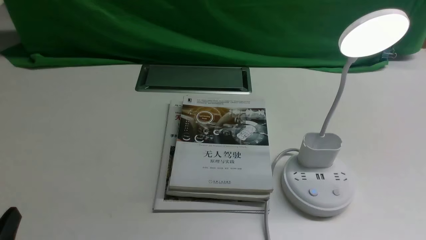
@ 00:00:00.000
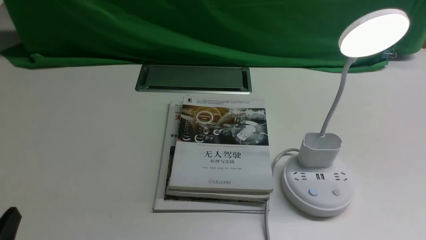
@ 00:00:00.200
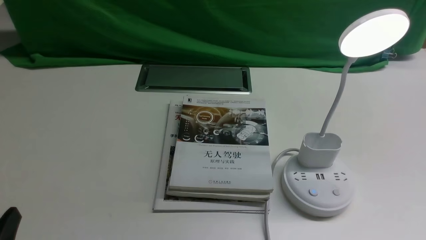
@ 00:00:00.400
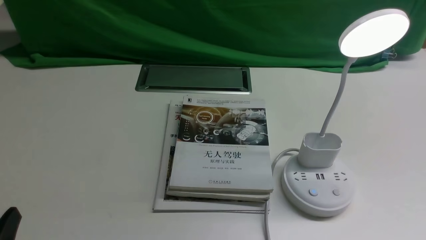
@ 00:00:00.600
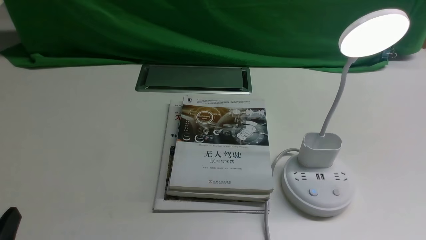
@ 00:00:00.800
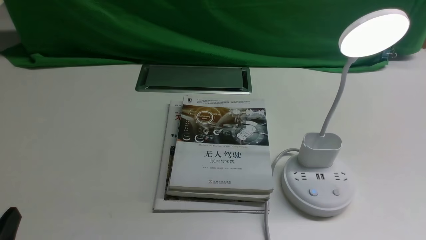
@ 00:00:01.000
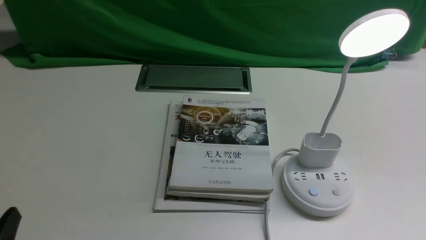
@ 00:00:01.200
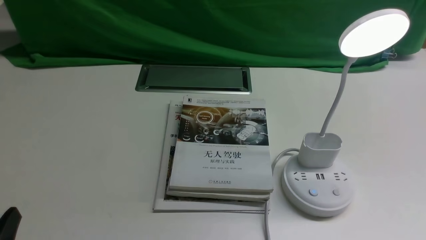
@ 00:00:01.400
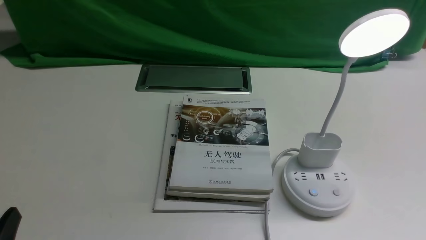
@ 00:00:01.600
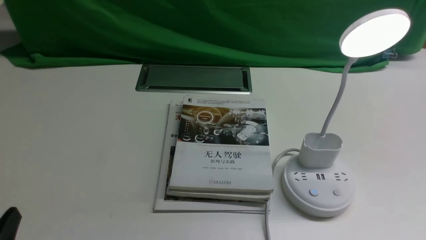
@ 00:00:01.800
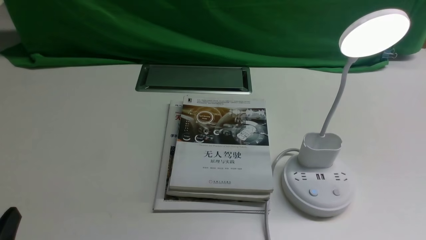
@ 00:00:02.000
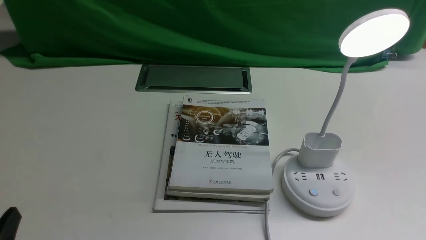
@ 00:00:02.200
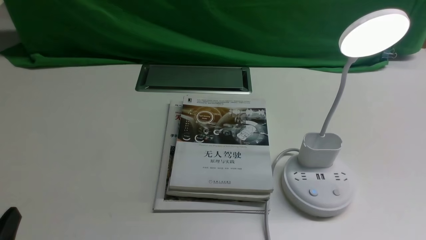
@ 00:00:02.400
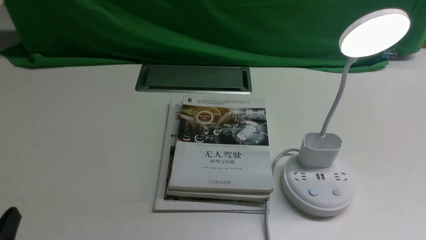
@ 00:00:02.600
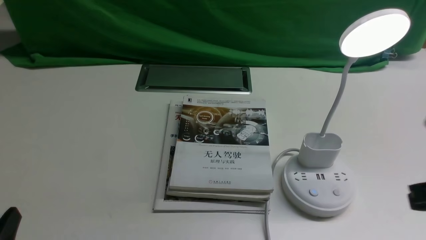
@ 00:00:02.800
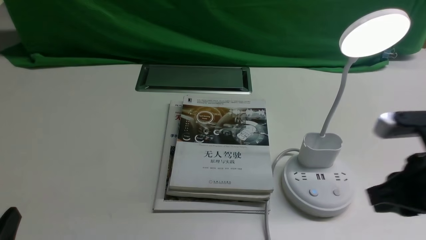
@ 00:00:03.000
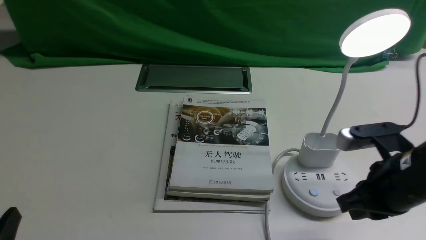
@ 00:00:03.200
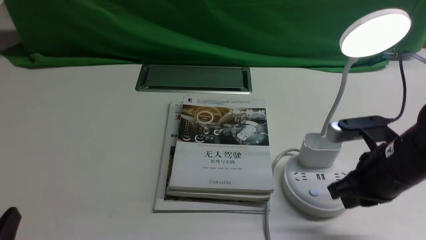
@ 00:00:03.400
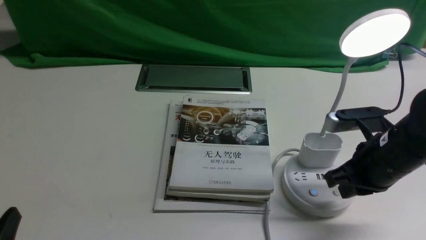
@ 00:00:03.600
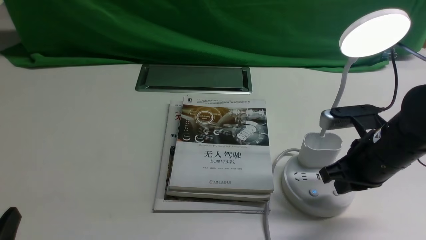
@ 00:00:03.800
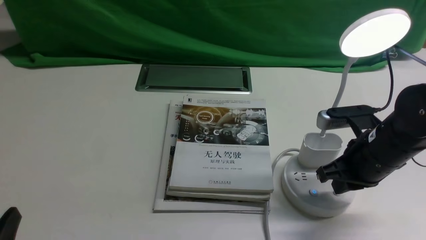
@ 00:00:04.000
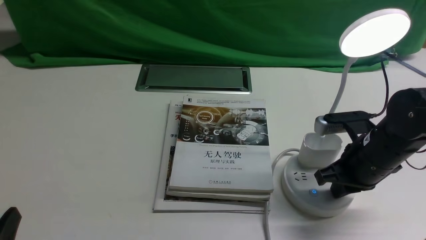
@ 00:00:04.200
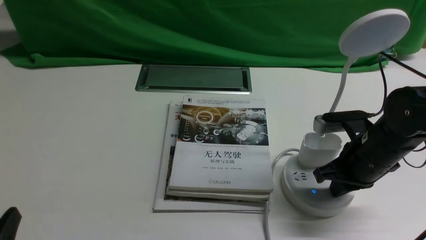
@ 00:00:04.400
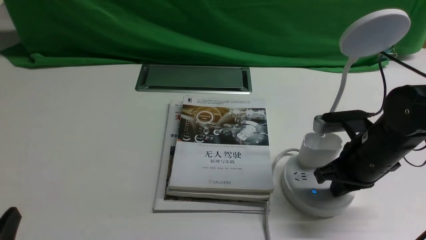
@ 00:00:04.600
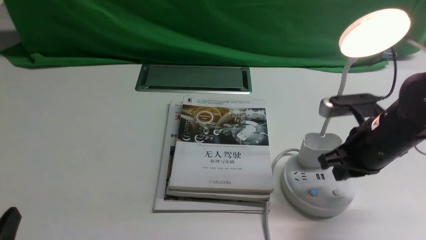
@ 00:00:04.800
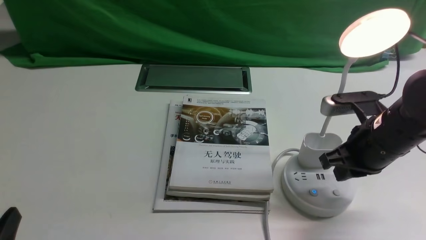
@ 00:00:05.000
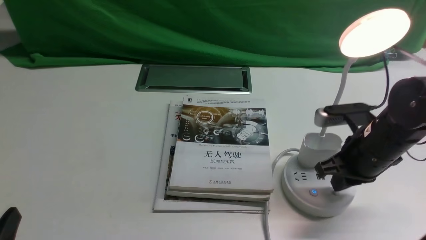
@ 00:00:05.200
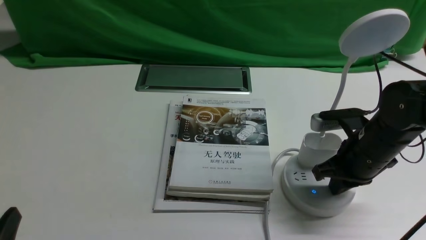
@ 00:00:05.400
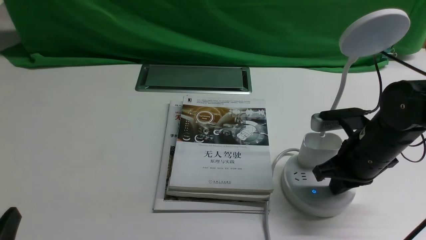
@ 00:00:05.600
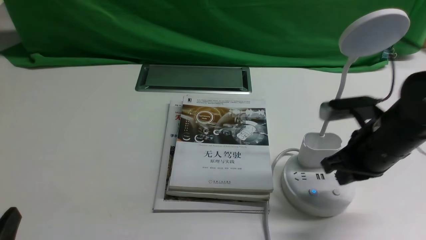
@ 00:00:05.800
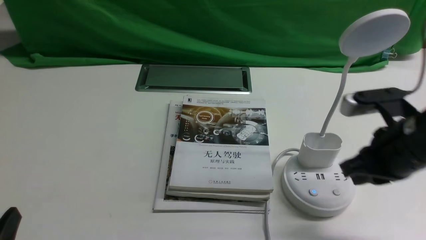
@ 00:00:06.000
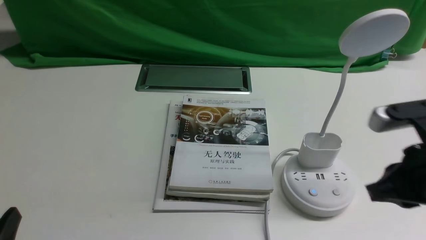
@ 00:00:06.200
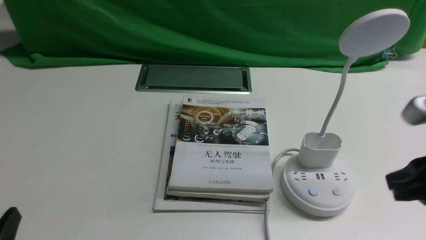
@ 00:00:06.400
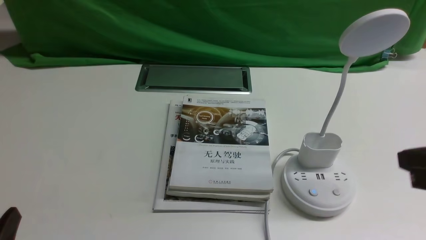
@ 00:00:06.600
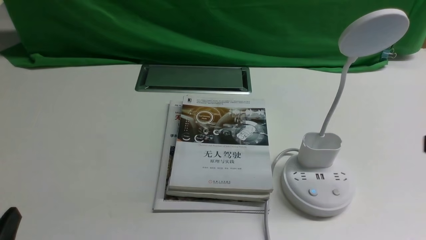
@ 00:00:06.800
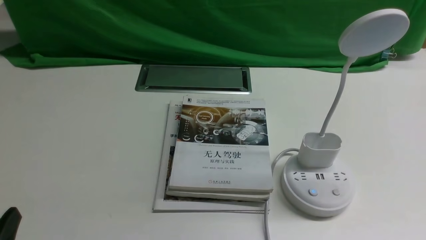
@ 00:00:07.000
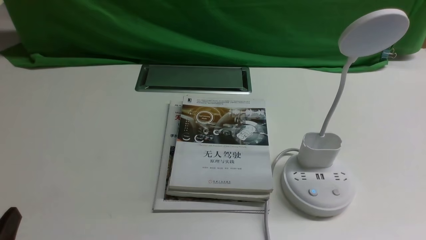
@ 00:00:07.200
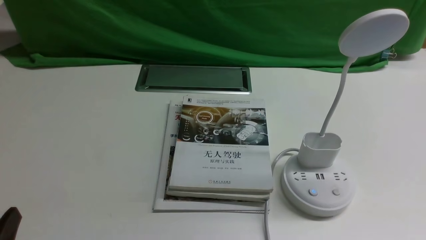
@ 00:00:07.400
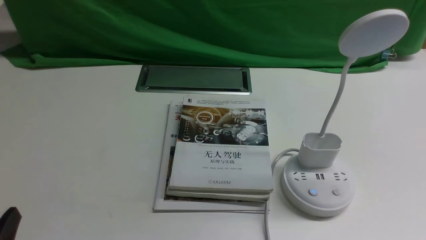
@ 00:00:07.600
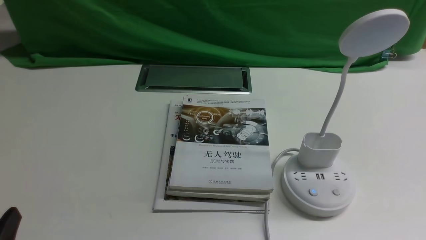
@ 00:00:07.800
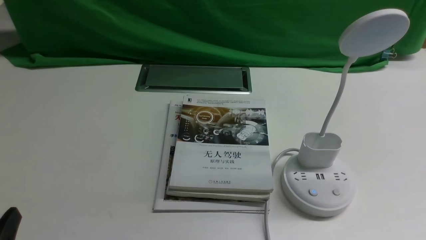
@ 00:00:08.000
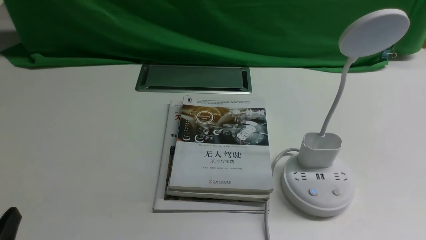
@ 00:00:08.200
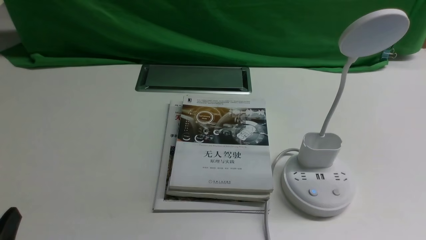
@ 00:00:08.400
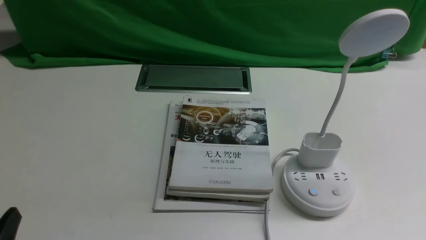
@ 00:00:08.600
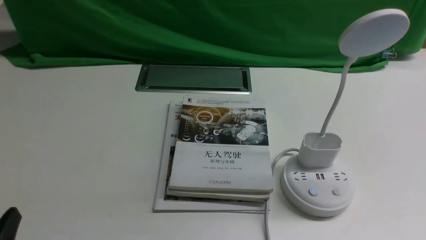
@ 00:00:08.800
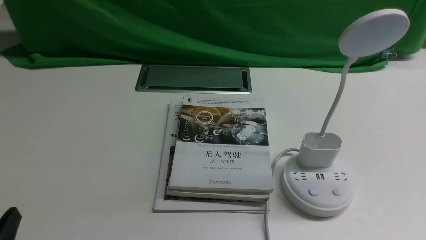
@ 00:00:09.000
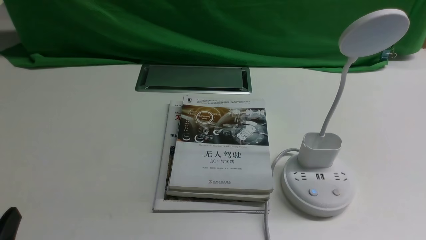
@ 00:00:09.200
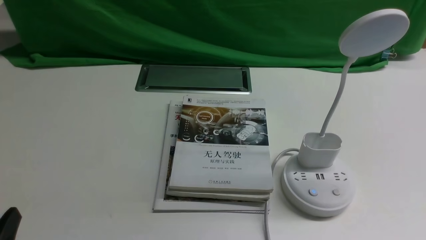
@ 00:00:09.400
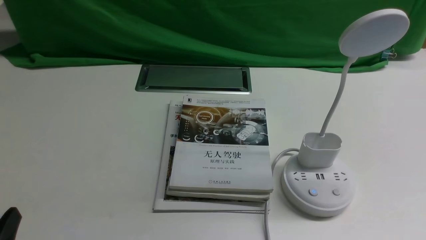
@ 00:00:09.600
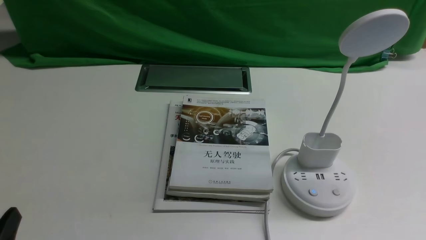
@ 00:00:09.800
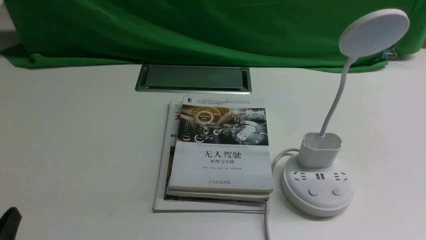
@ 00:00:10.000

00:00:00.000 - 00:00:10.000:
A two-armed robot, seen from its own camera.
Task of the whole recording: turn off the desk lamp on the white desktop by hand.
Step, 00:00:00.000 - 00:00:05.800: use the right arm to press the button switch on the lamp holder.
00:00:02.800 - 00:00:04.200: The right gripper heads forward, downward and to the left, covering roughly 15 cm.
00:00:04.200 - 00:00:05.800: The grippers make only small movements.
00:00:05.800 - 00:00:07.200: The right gripper travels backward and to the right by approximately 20 cm.
00:00:08.600 - 00:00:10.000: Both grippers stay put.
